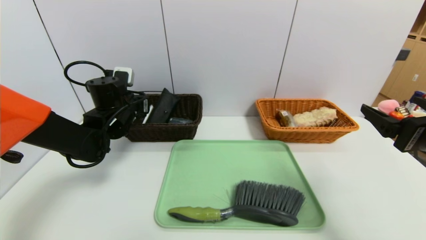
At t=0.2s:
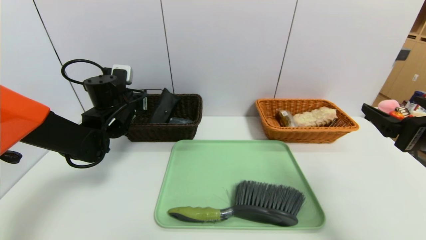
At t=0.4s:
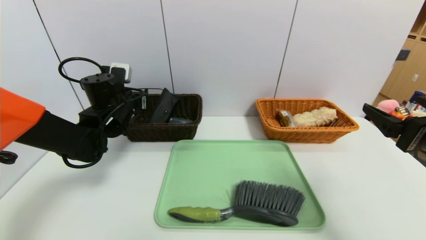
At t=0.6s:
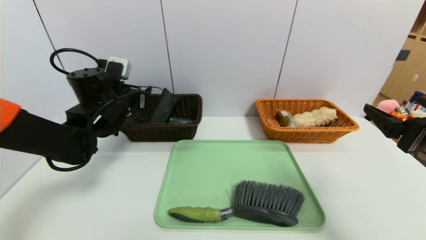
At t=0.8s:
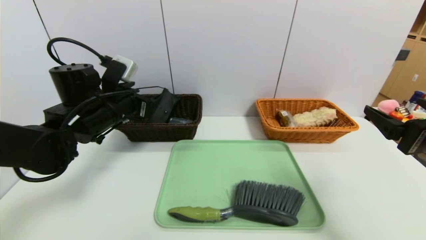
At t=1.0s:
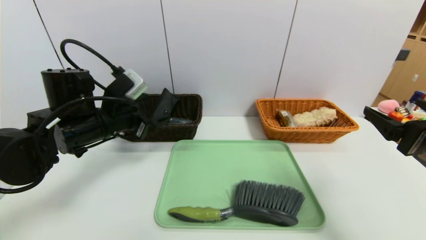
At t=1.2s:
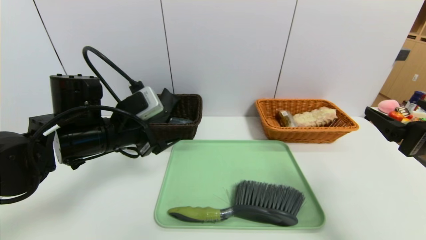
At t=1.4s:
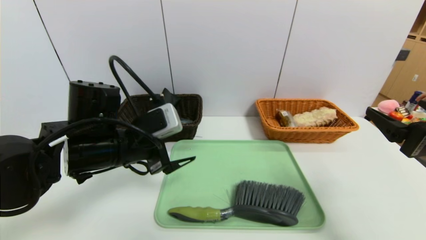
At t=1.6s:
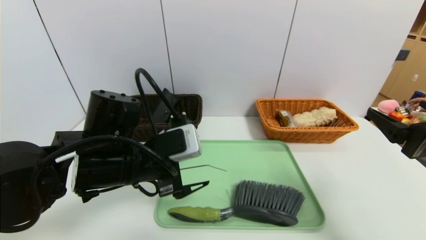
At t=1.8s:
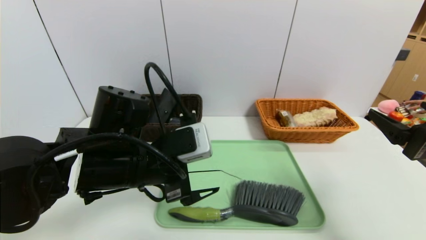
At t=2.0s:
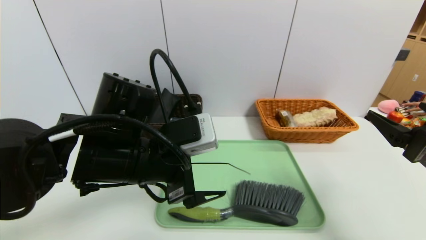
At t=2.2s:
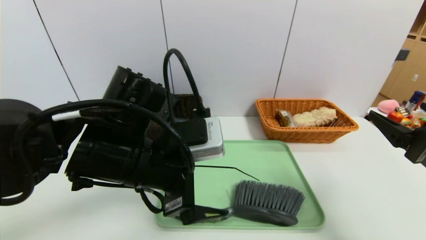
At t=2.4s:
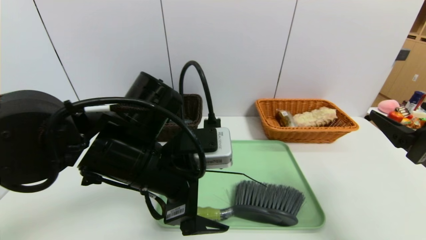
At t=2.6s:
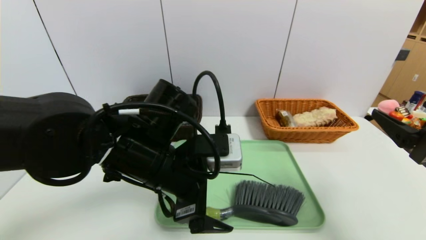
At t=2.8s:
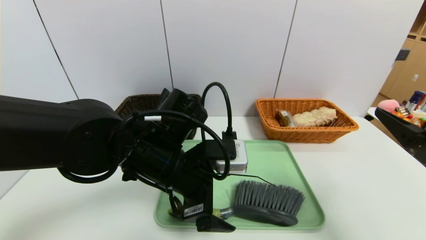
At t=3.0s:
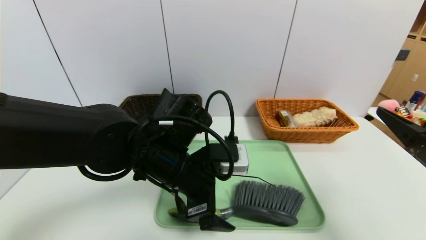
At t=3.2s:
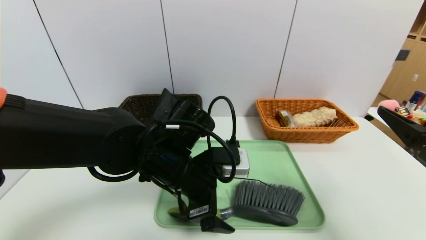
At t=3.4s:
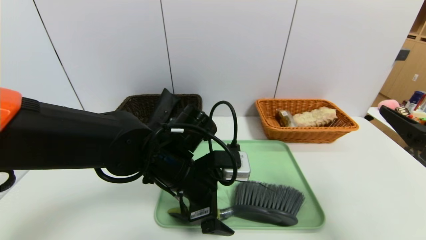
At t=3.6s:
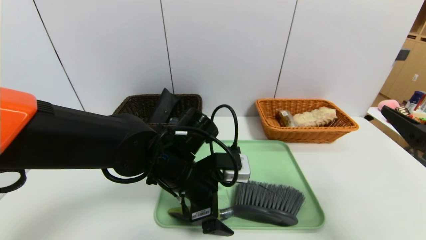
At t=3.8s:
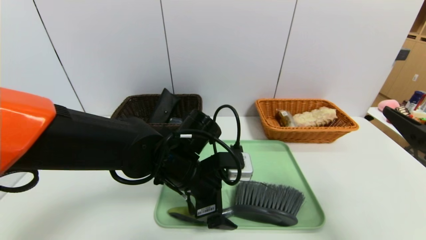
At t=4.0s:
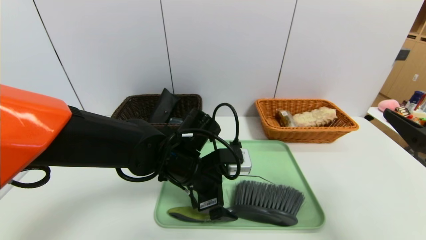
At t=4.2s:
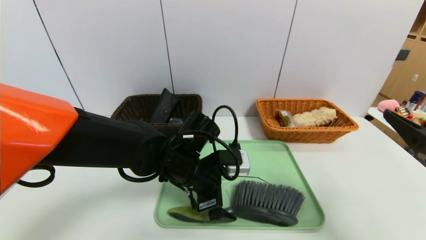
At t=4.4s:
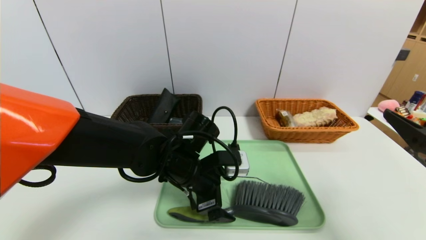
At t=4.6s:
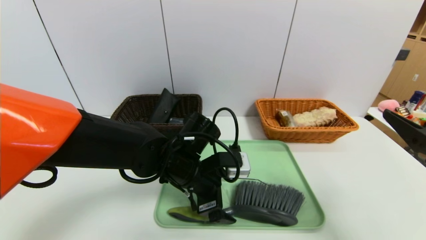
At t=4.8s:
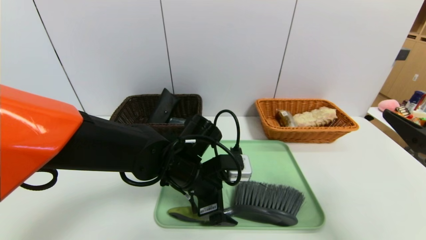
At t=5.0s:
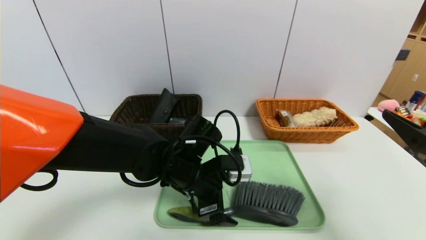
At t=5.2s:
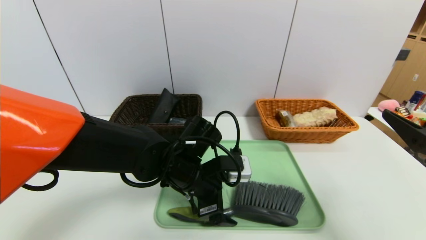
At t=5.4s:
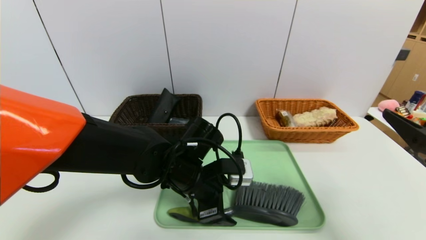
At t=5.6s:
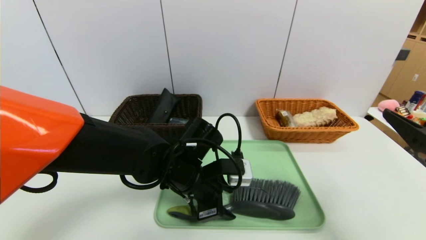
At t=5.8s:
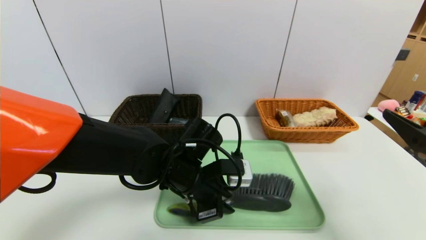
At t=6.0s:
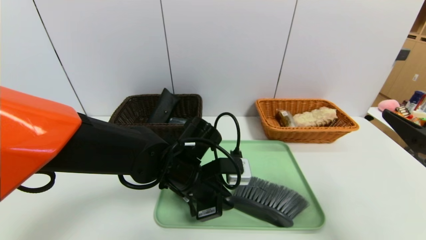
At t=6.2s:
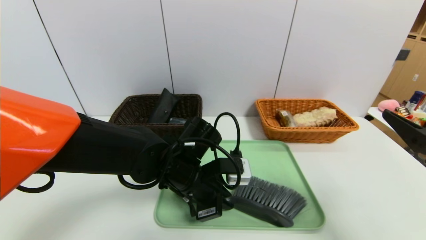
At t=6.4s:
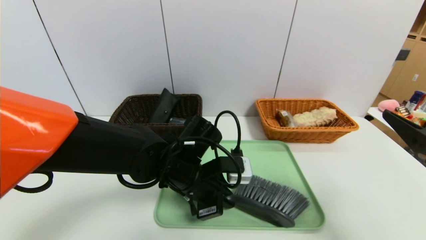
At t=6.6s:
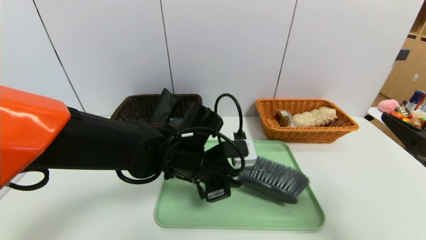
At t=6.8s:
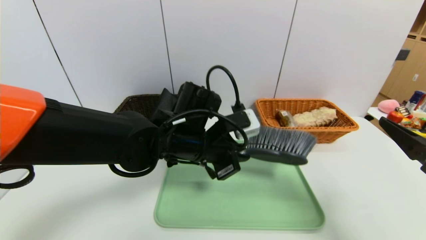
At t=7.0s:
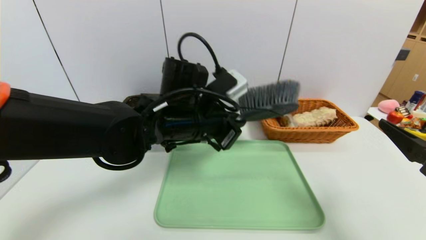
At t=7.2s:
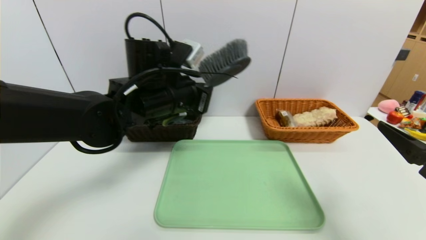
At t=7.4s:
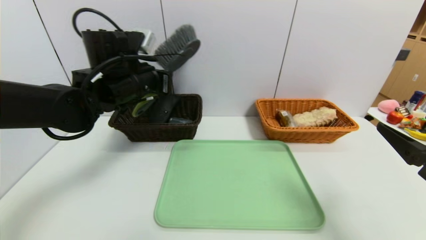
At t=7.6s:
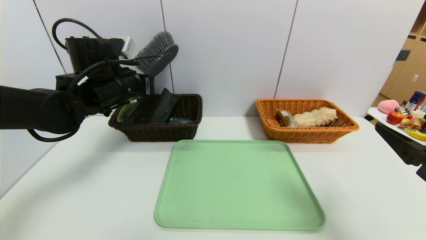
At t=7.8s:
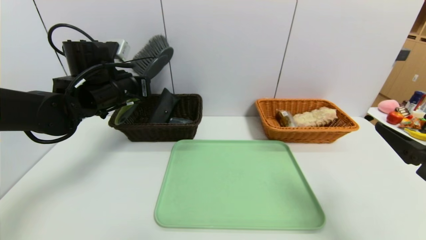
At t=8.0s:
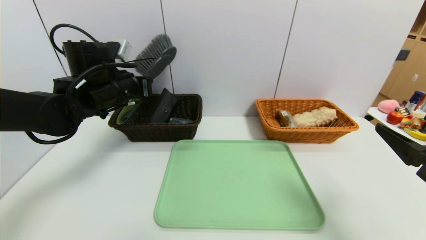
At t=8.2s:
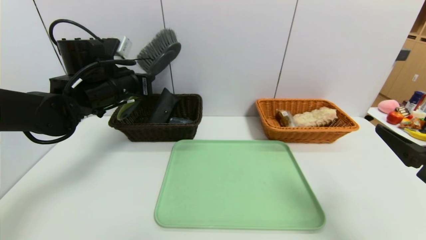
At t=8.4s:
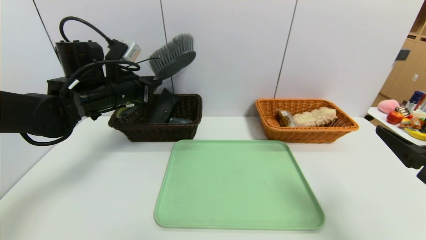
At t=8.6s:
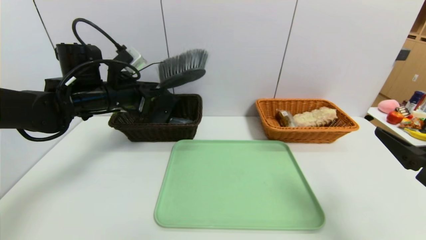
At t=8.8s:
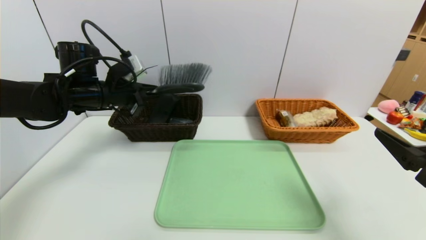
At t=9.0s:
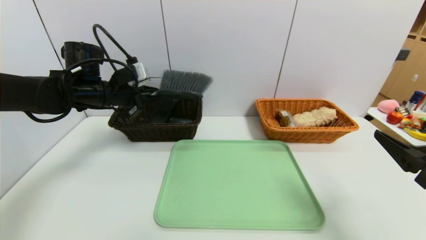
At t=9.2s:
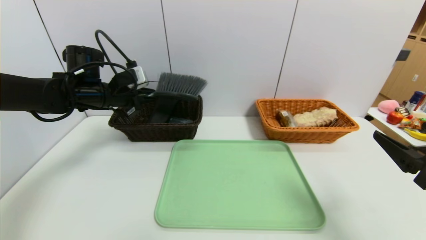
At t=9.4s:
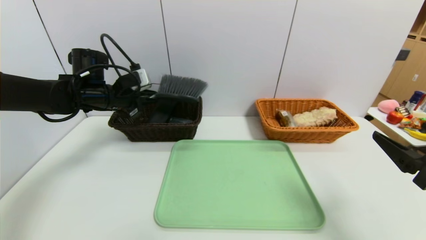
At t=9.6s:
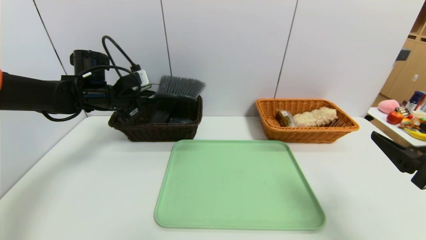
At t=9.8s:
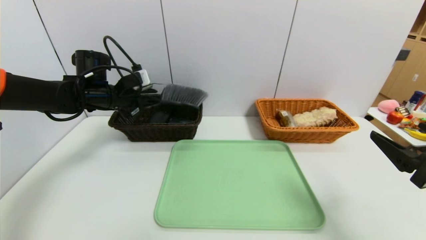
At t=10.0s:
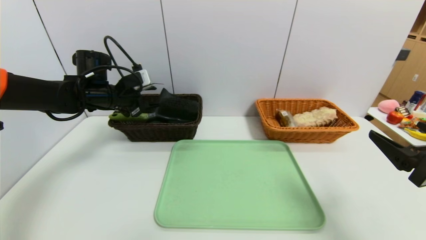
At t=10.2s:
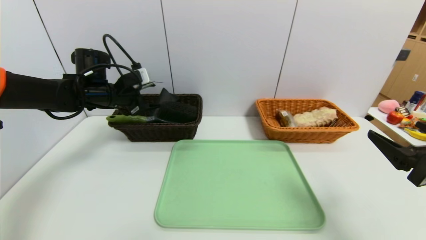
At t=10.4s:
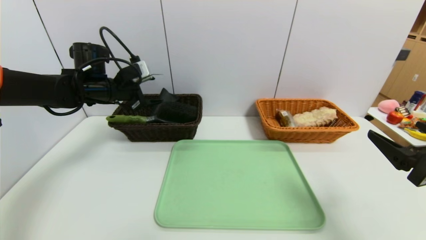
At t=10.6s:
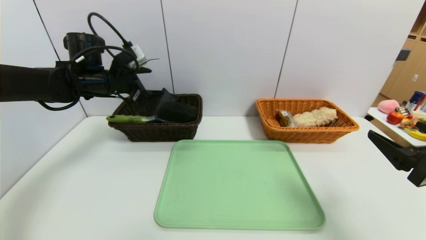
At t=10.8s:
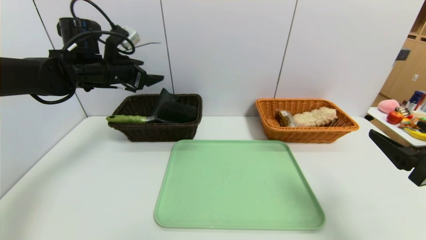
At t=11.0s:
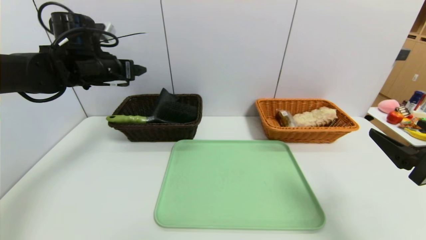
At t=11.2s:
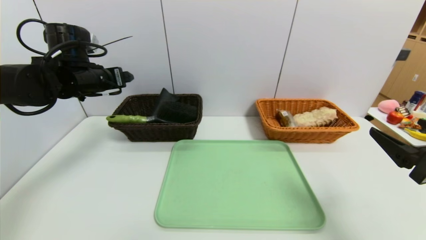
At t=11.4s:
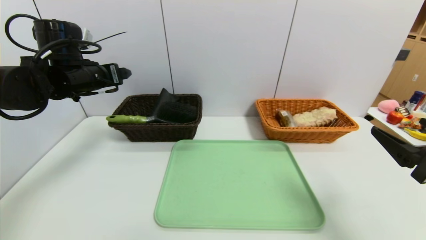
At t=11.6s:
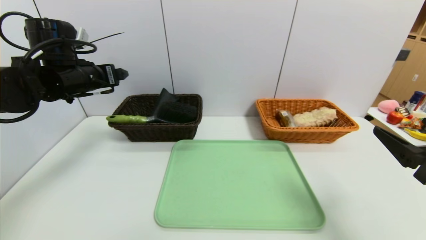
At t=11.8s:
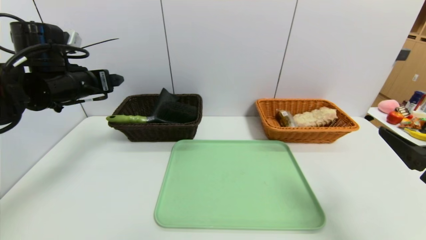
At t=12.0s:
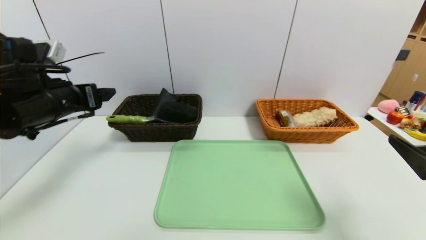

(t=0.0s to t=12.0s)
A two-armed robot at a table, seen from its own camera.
Task of the whole recording: place the food in the right basket with the right gripper, and place the non food items in the left basket with the left gripper.
Step, t=0.2s - t=10.2s: Grasp the broom and put it in the left basket.
t=0.0s - t=1.6s: The left gripper heads backward and to the right, covering some 20 cm, and opens.
t=1.6s - t=3.0s: The left gripper moves to the right, roughly 5 cm.
t=3.0s - t=4.4s: The left gripper moves some 5 cm.
t=4.4s - t=6.0s: The left gripper closes.
t=6.0s - t=7.6s: The left gripper moves to the left, upward and forward, approximately 20 cm.
t=7.6s - t=9.0s: The left gripper shifts by approximately 5 cm.
t=9.0s - t=10.4s: The left gripper opens up.
t=10.4s - t=12.0s: The left gripper is displaced backward by approximately 15 cm.

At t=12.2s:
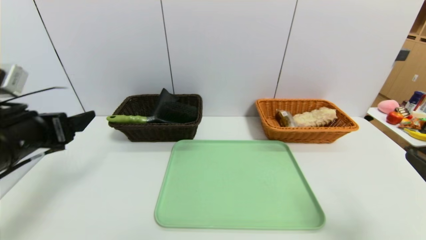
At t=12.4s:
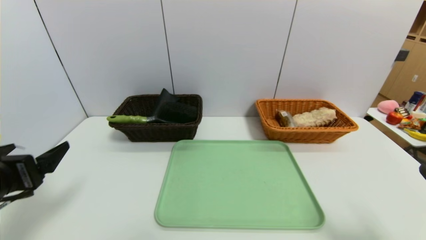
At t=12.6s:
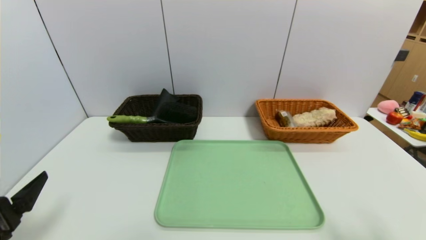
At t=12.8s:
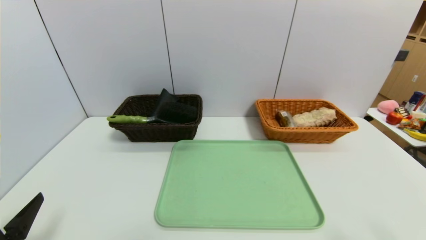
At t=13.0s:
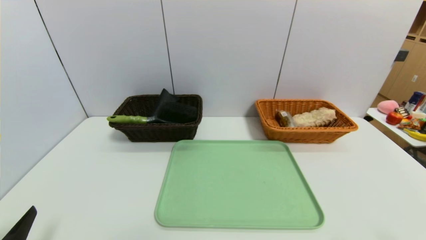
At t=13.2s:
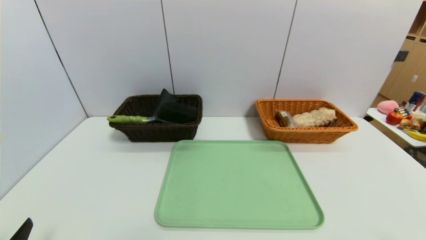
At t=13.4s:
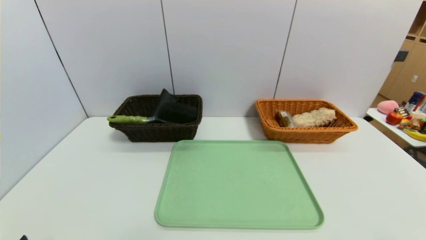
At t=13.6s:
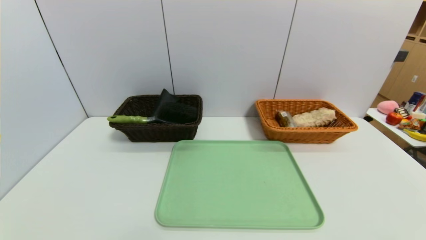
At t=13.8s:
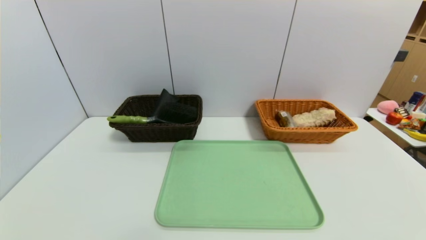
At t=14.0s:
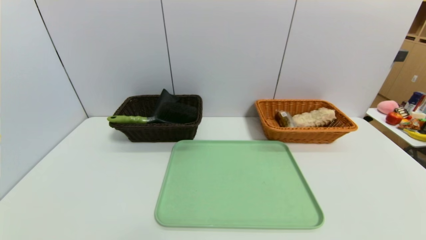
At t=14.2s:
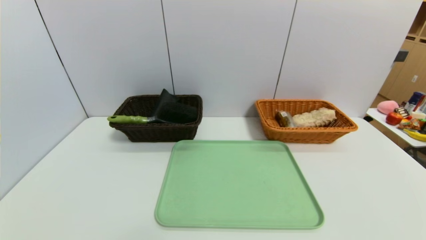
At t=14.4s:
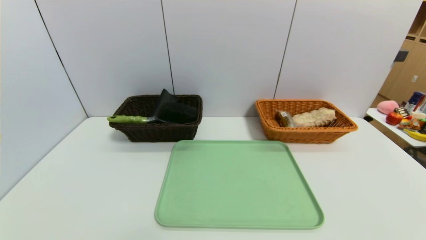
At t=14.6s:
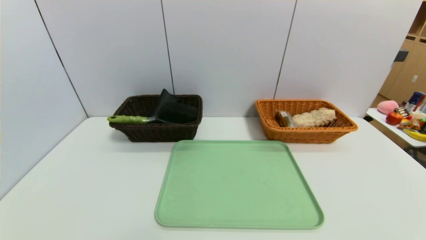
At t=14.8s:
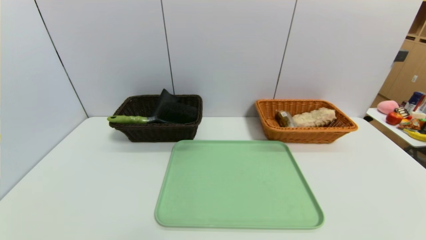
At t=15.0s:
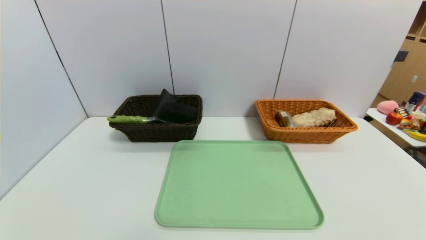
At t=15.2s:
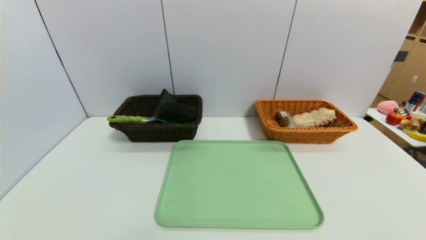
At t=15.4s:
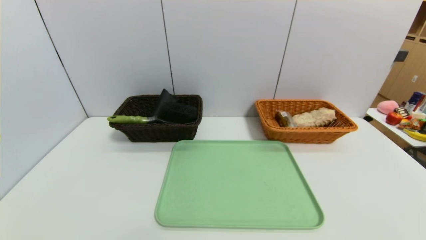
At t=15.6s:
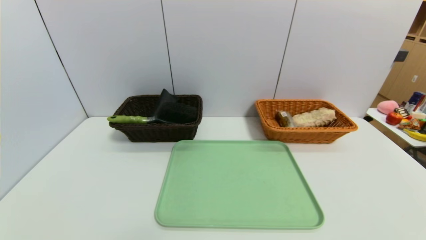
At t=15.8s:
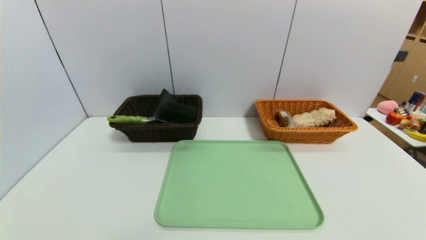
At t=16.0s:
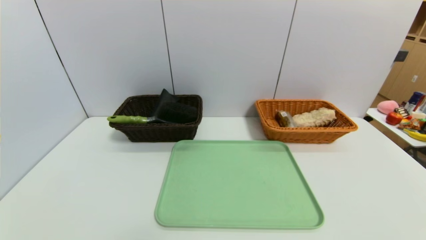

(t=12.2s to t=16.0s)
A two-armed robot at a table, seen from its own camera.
Task of the whole recording: place the food in the right basket with the right gripper, and place the non food items in the left basket with the left gripper.
t=12.2s - t=13.4s: The left gripper travels backward and downward by some 20 cm. Meanwhile the right gripper is displaced backward by about 10 cm.

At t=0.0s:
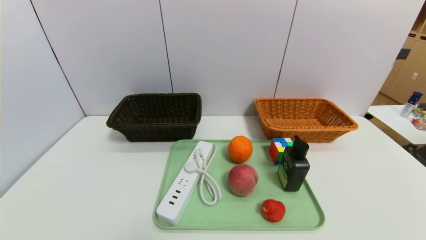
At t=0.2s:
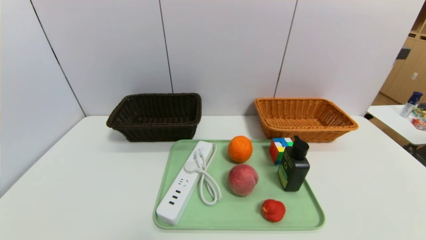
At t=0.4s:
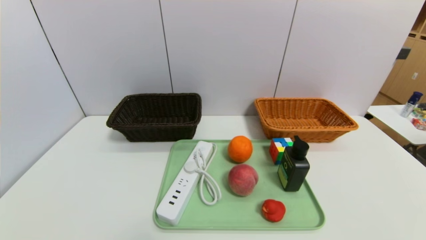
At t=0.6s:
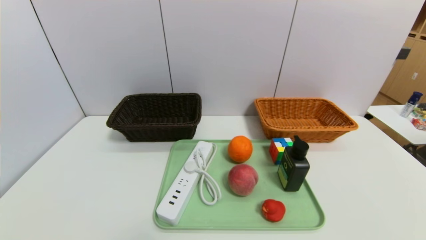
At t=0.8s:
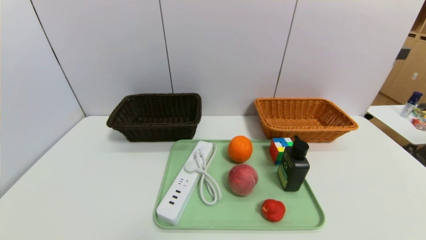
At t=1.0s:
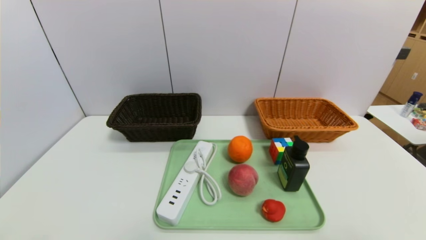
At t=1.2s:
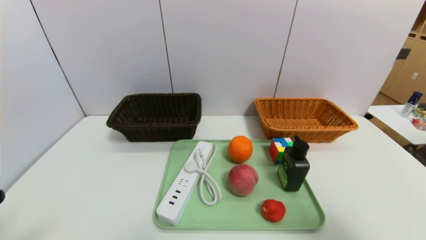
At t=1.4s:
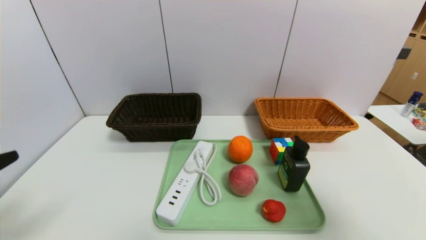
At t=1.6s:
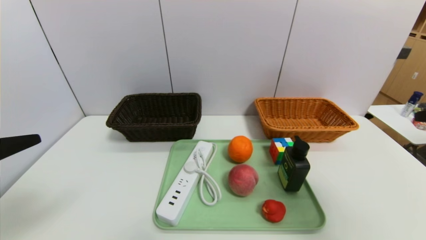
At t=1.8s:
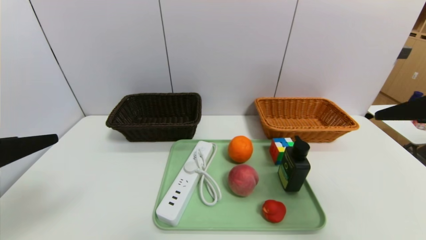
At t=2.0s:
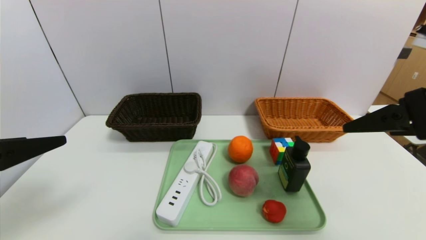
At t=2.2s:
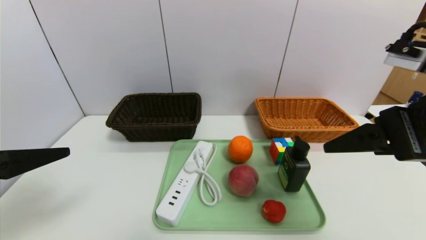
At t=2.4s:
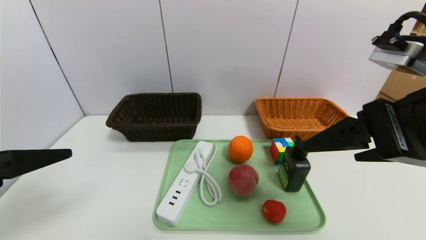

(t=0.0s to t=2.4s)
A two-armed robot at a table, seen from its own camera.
Task of the whole recording: place the food in the right basket with the right gripper, and place the non food items in the left basket with the left gripper.
t=0.0s - t=1.2s: The right gripper is displaced upward by about 25 cm.
t=1.2s - t=2.4s: The right gripper is displaced to the left and forward by roughly 15 cm. The left gripper travels forward by approximately 10 cm.
